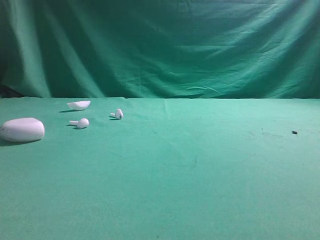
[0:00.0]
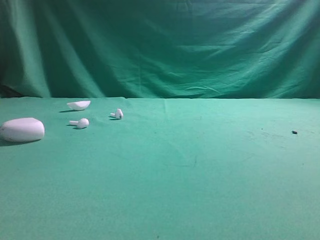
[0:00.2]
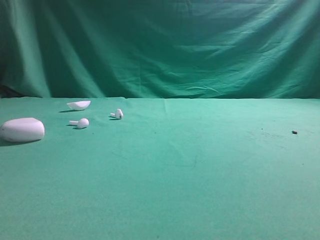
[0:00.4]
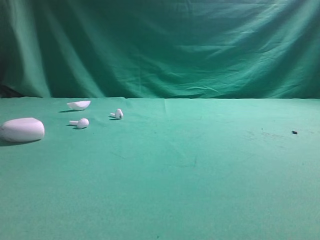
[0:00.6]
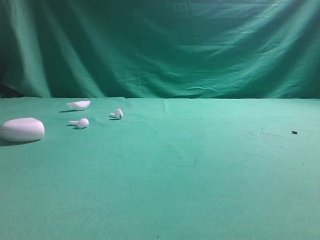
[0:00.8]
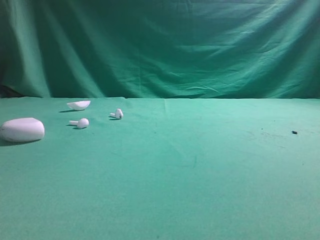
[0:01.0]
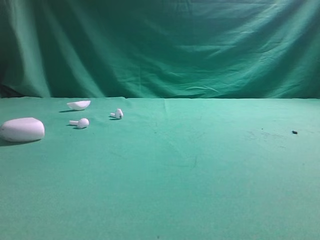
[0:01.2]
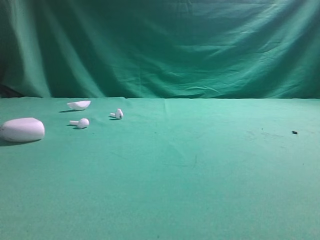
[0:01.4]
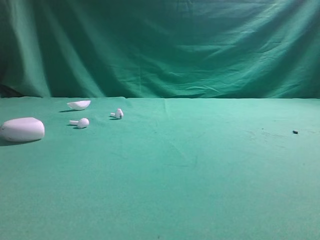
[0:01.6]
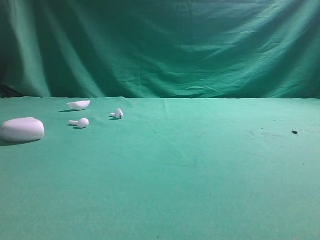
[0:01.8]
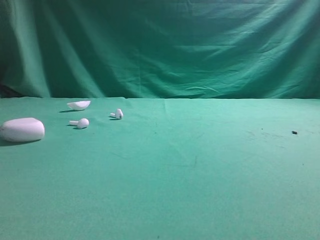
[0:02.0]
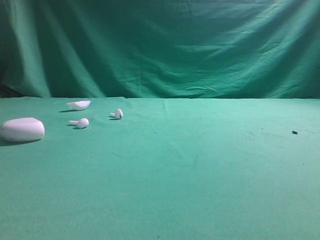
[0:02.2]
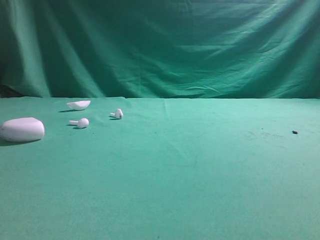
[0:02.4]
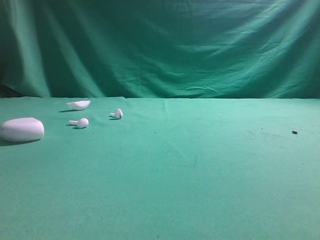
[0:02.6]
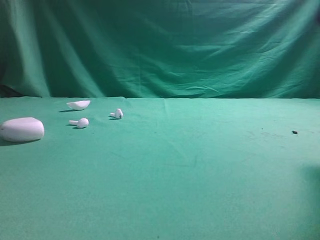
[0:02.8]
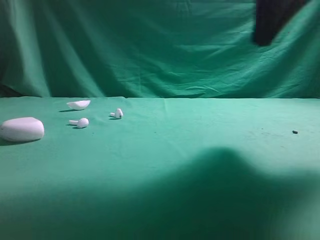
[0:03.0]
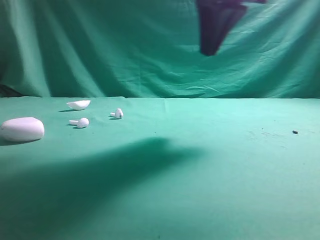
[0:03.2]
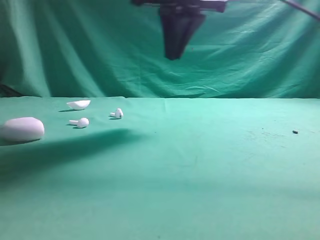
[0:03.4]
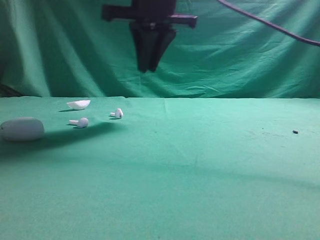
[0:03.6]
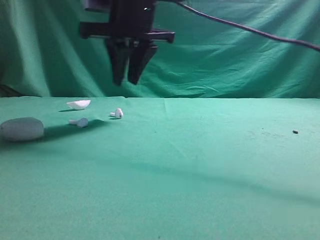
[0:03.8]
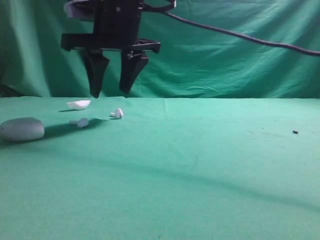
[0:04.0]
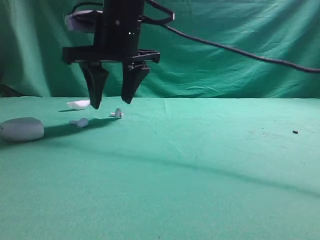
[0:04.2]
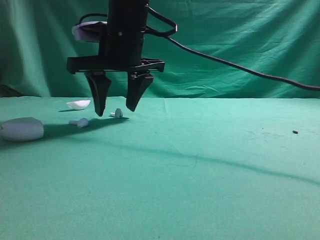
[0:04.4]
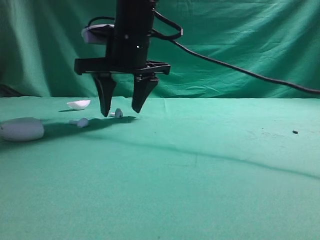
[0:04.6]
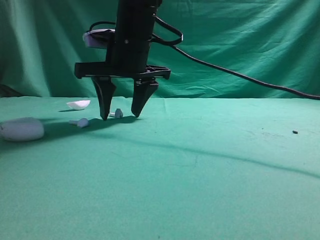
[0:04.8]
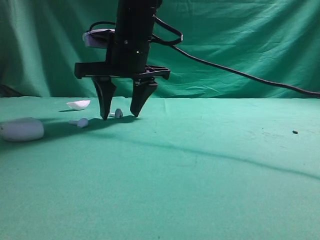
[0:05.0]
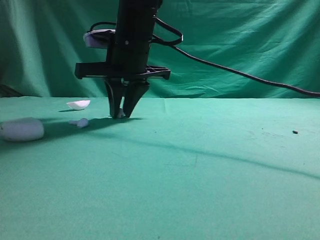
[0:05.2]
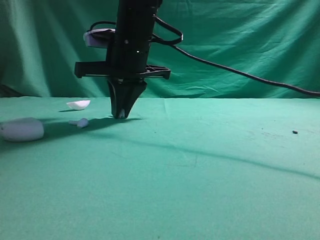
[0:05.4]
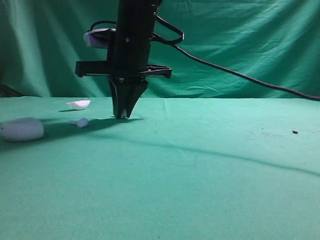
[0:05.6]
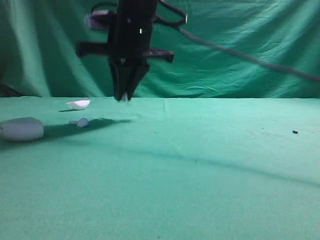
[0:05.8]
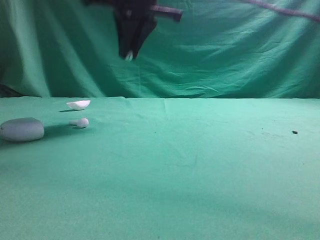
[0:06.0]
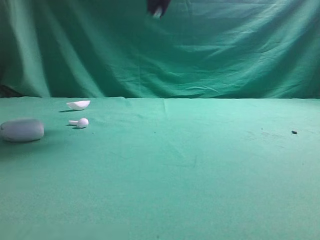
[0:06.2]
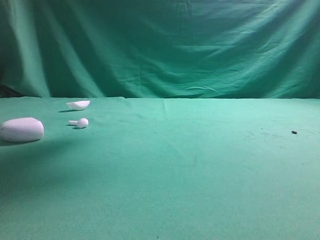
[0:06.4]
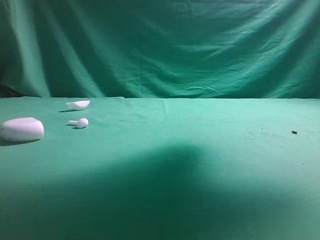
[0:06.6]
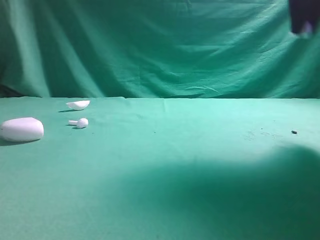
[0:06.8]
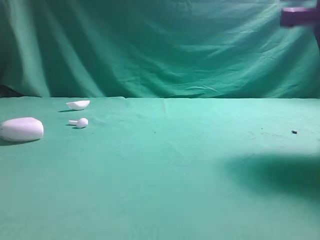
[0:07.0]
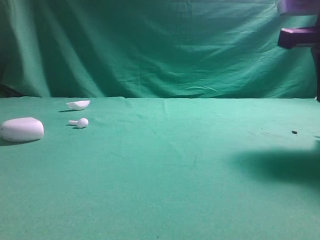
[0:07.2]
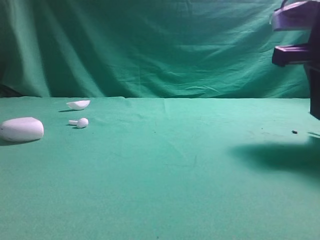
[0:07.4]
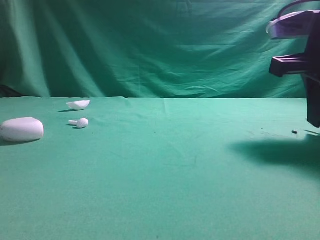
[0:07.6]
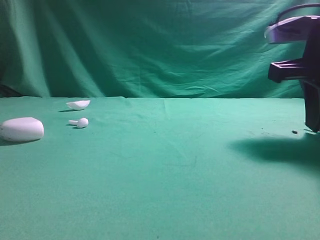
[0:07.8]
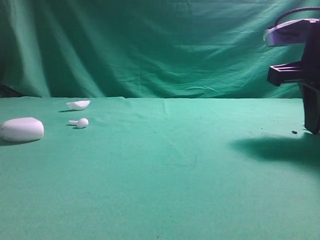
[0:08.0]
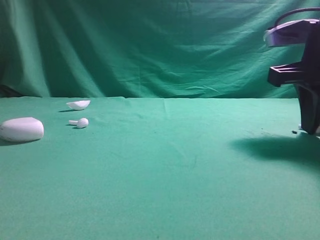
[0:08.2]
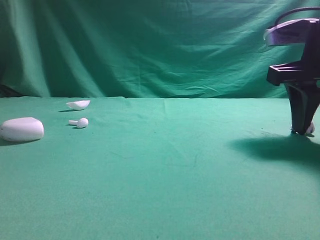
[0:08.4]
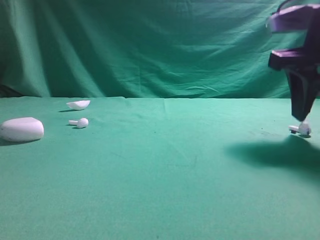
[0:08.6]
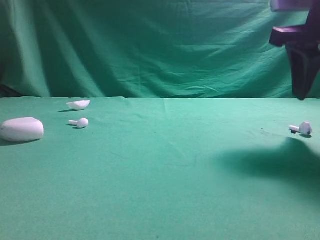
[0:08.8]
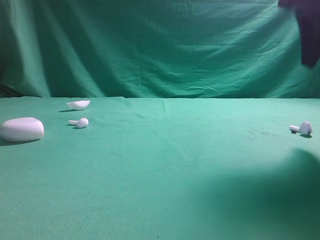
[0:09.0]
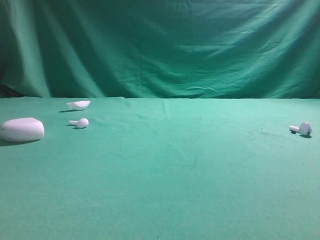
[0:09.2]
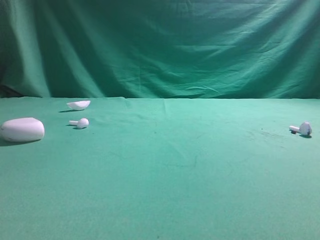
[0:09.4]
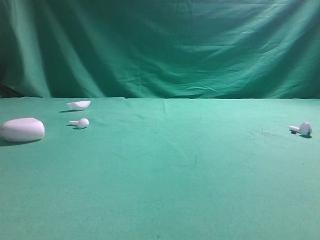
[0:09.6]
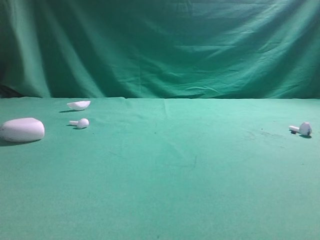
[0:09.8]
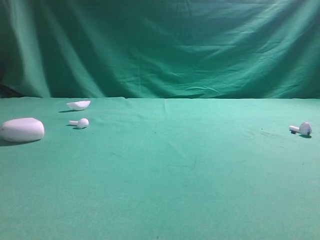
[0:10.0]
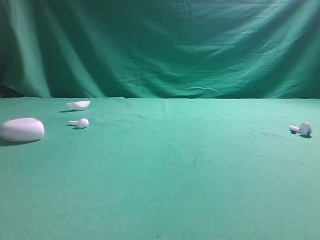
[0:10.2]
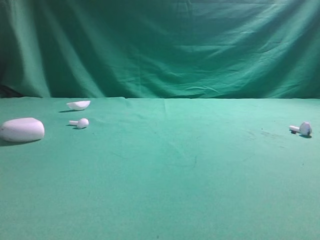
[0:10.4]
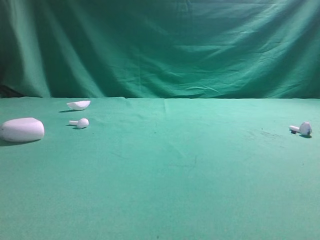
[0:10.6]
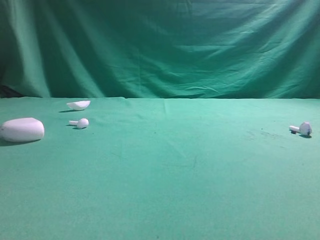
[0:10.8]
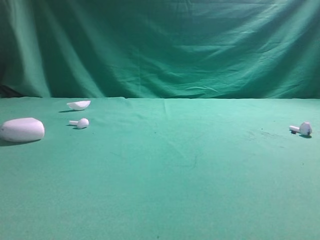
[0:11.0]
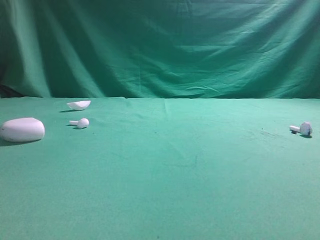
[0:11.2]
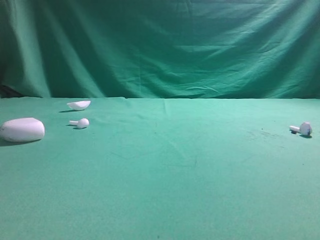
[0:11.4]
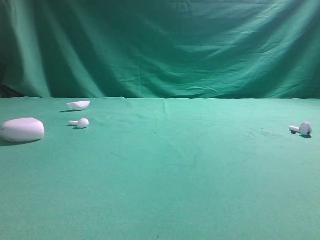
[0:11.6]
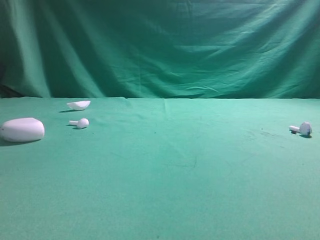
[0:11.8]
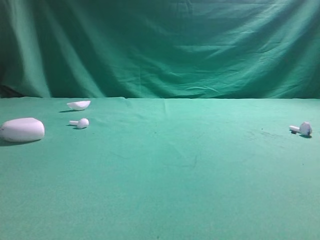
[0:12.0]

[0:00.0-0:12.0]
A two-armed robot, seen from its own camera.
Step, 0:00.0 to 0:05.8: Grasp the Bluetooth earbud.
Step, 0:06.0 to 0:08.8: Place bluetooth earbud on the right side of the table.
